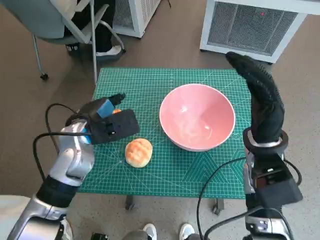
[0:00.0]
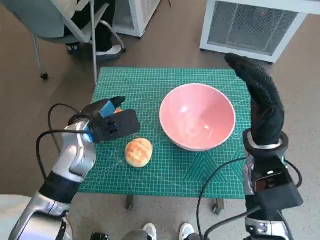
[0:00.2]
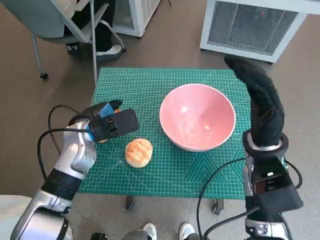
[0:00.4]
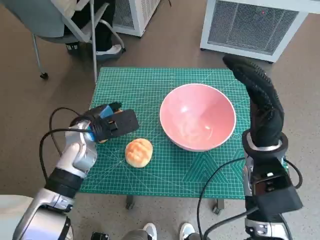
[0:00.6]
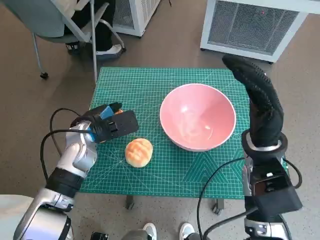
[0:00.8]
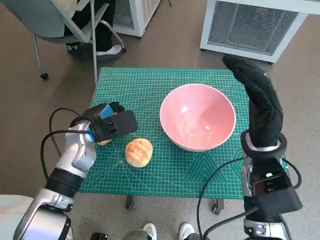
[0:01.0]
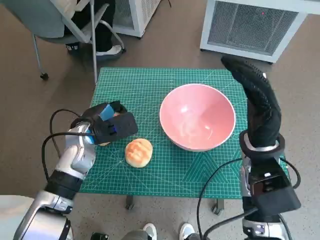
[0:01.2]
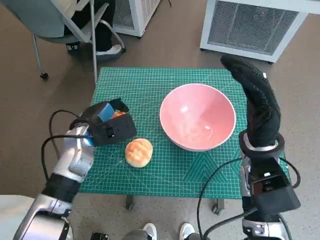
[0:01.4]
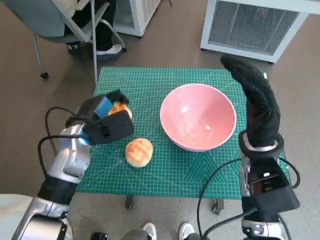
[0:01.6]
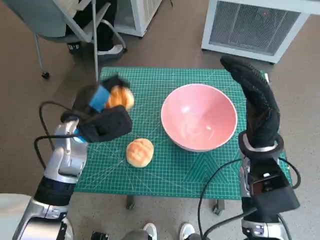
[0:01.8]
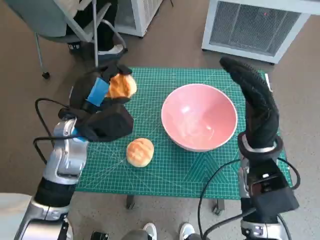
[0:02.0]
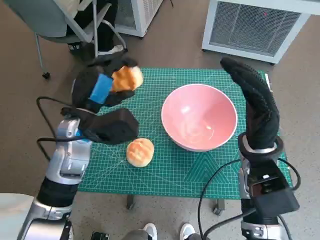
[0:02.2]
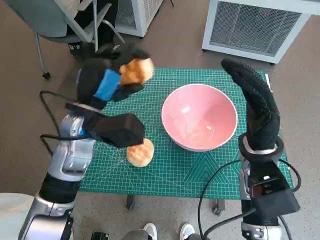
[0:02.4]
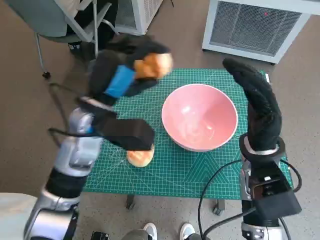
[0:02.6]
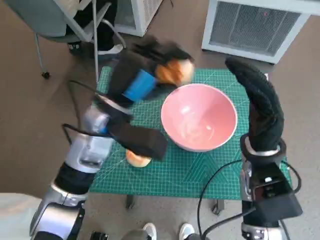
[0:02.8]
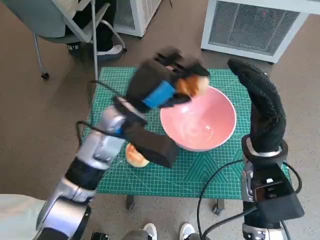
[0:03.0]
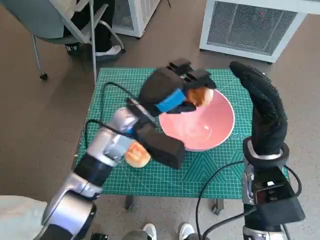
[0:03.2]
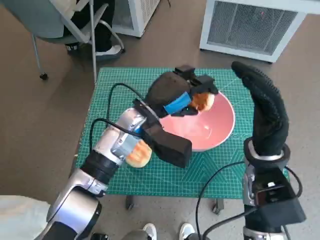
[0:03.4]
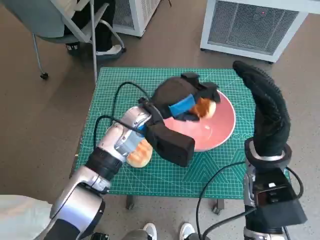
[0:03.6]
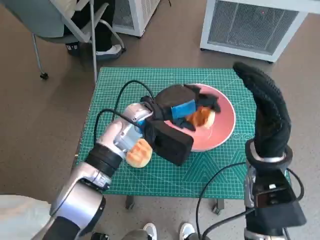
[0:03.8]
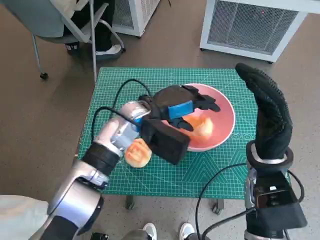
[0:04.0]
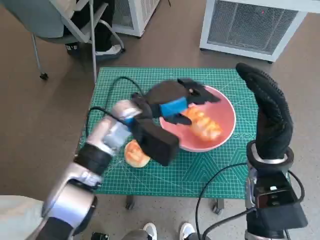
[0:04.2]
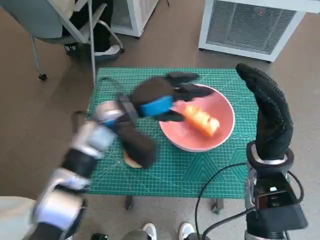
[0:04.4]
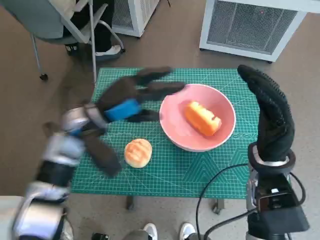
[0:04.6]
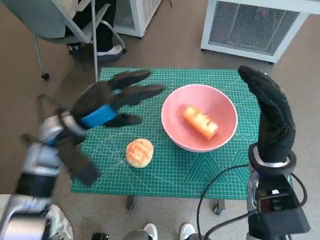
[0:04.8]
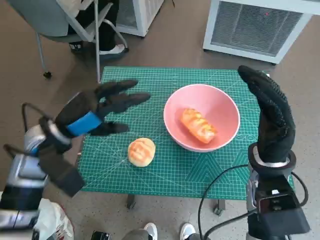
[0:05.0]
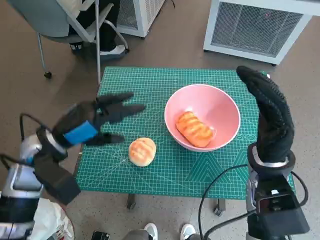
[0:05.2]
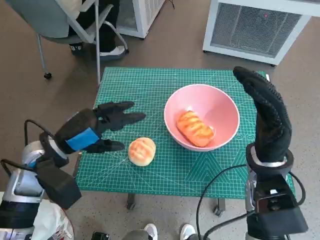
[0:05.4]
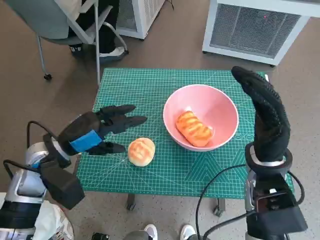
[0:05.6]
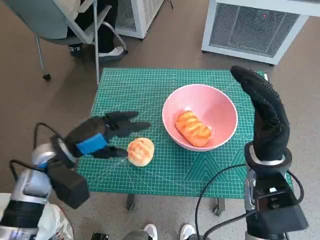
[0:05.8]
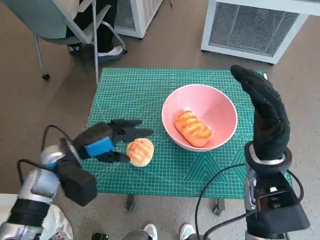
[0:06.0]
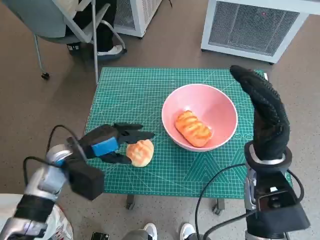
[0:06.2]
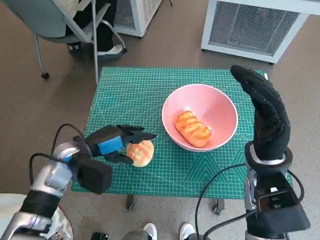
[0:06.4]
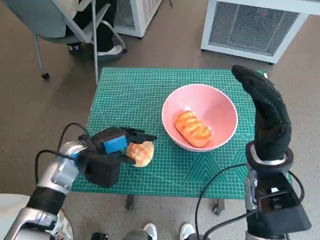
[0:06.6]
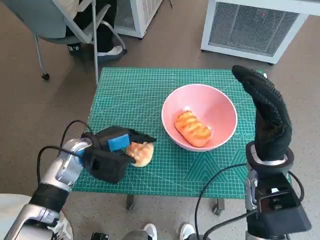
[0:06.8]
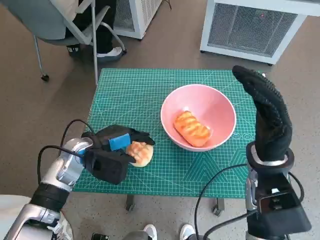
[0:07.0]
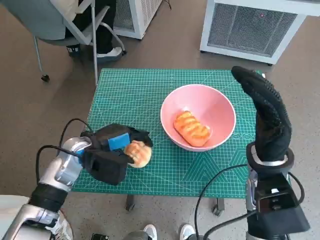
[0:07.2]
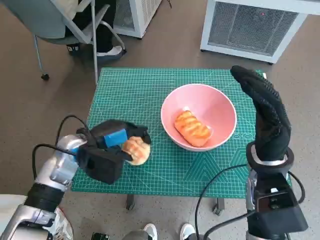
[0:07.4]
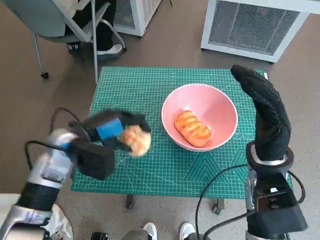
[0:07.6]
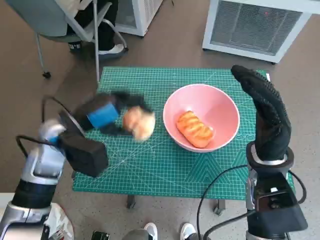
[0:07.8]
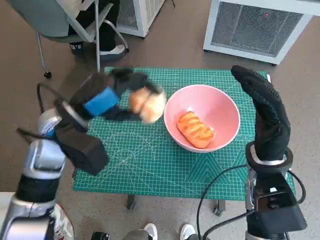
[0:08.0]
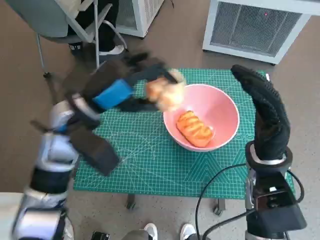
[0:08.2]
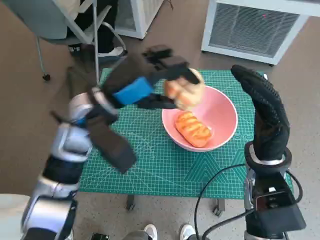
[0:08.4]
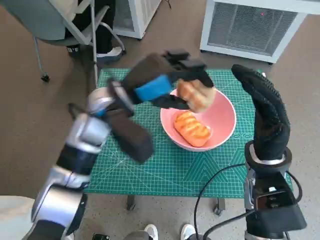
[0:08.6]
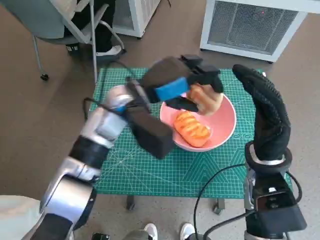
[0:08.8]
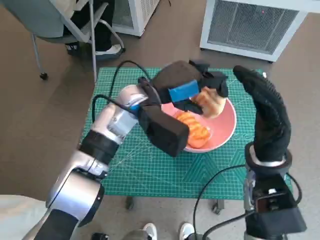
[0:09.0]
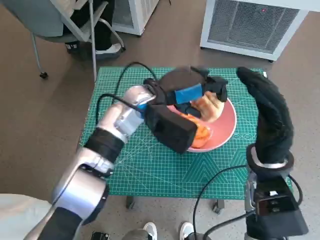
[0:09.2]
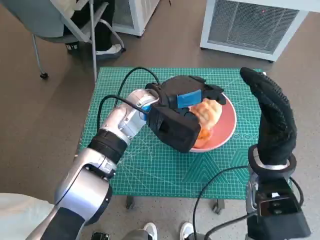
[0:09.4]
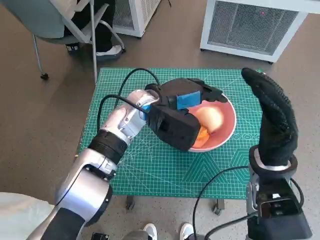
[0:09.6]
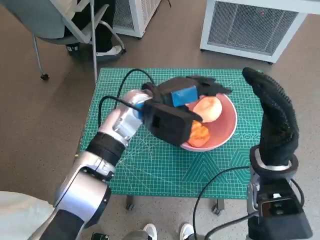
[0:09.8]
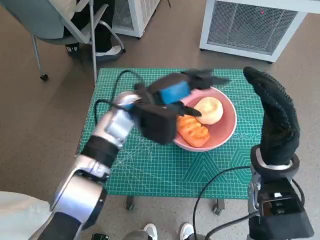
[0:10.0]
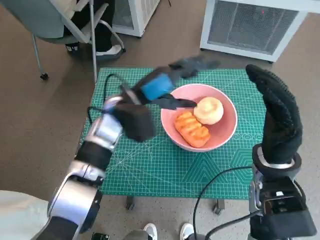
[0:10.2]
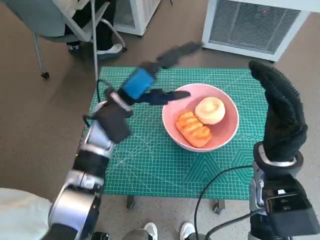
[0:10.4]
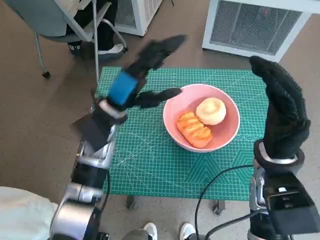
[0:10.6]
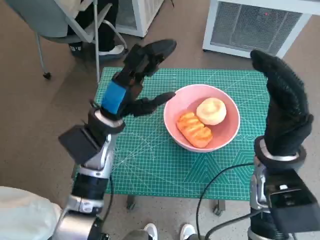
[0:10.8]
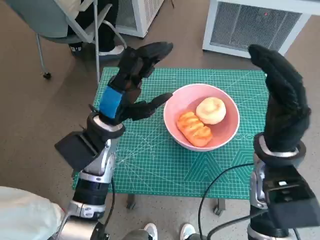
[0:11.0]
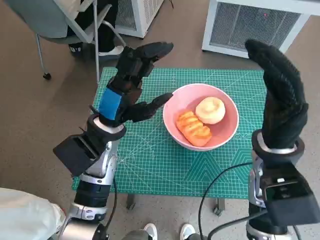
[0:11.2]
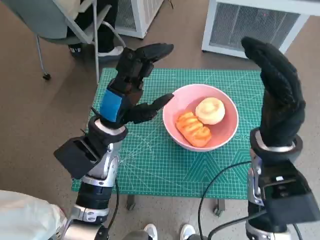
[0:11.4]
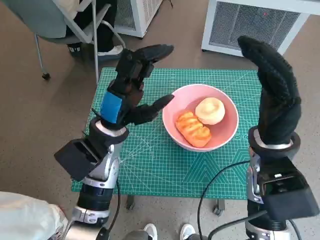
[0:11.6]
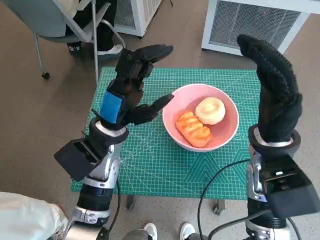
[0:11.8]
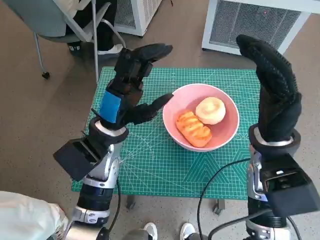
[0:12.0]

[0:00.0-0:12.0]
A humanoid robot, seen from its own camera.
Task of the whole recording: Push the bowl to the center of the table and put the bread into the bowl.
Step, 0:00.0 to 0:01.2: Grasp the long bread with left hand.
Step, 0:01.4 to 0:04.8: Place the long bread in pink bowl with left hand.
Step, 0:05.0 to 0:07.0: Grasp the round bread with left hand.
Step, 0:07.2 to 0:10.2: Place the round bread in pink bowl with left hand.
0:00.0 to 0:01.6: The hands move only a little.
0:01.6 to 0:03.0: The left hand shifts approximately 10 cm to the right and upward.
0:04.4 to 0:06.0: The left hand moves to the left, backward and downward, roughly 15 cm.
0:07.6 to 0:09.0: The left hand heads to the right, upward and forward, covering some 15 cm.
0:09.0 to 0:10.4: The left hand shifts by some 5 cm.
0:10.4 to 0:12.0: The left hand is displaced backward by roughly 5 cm.

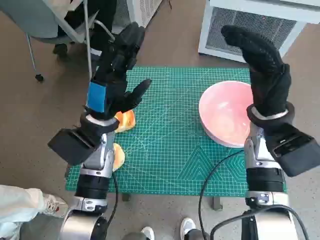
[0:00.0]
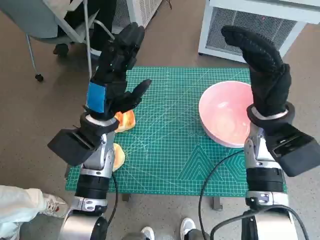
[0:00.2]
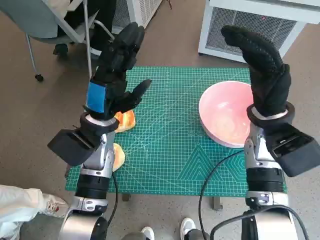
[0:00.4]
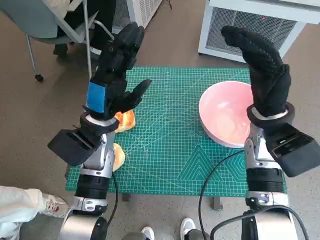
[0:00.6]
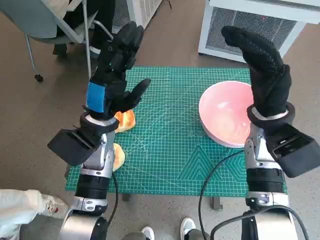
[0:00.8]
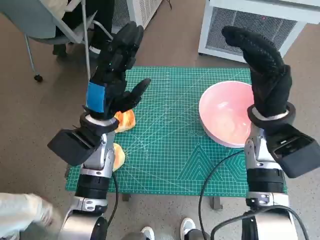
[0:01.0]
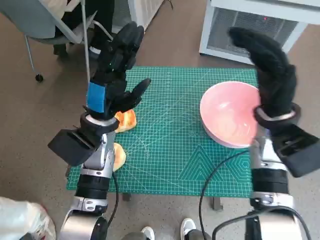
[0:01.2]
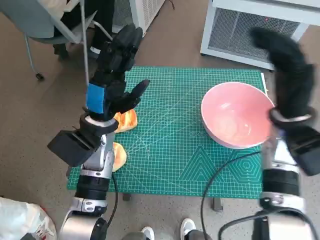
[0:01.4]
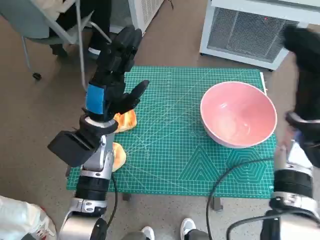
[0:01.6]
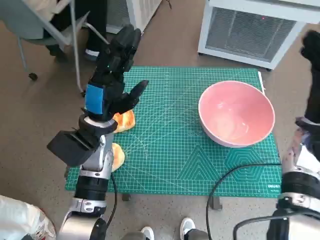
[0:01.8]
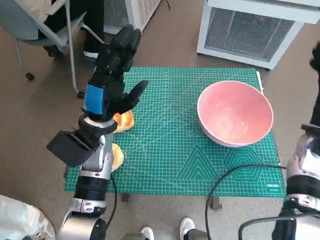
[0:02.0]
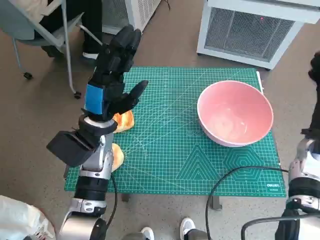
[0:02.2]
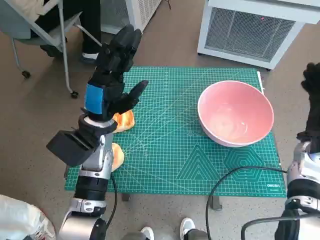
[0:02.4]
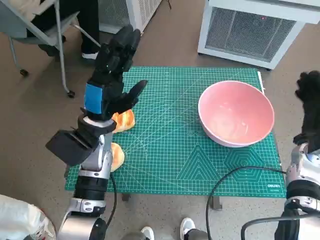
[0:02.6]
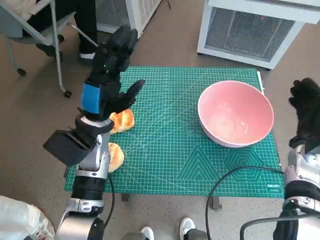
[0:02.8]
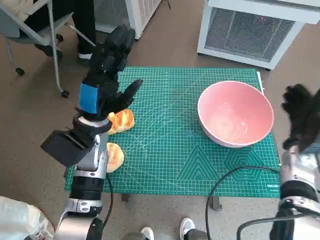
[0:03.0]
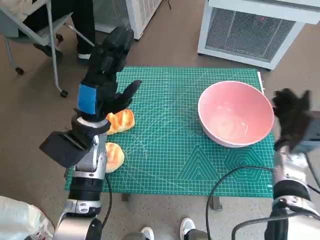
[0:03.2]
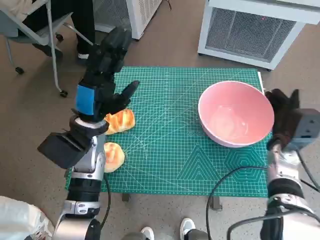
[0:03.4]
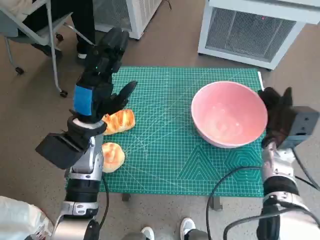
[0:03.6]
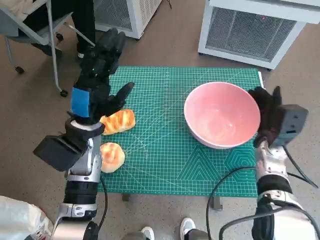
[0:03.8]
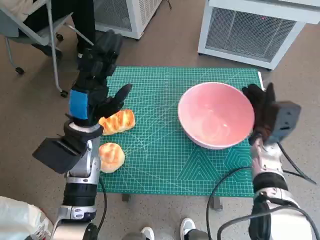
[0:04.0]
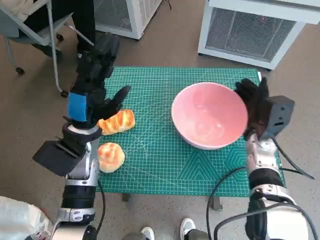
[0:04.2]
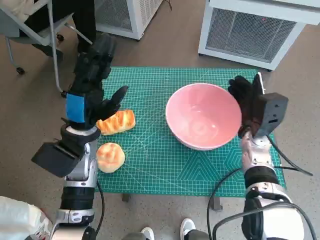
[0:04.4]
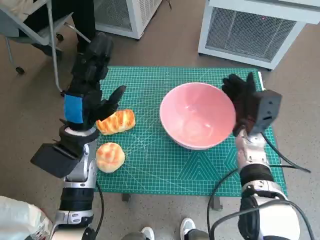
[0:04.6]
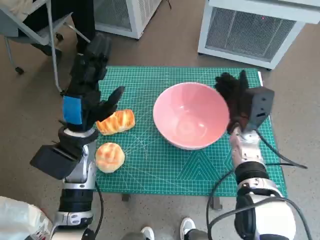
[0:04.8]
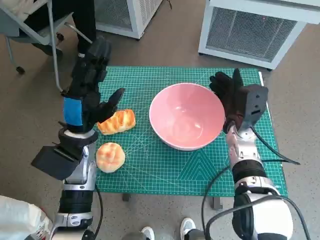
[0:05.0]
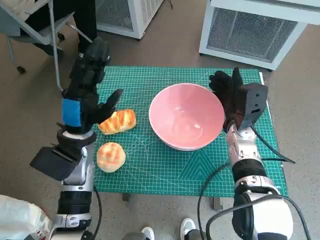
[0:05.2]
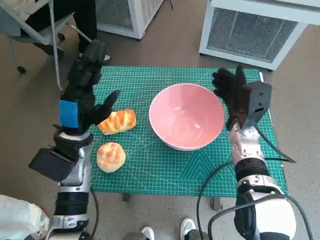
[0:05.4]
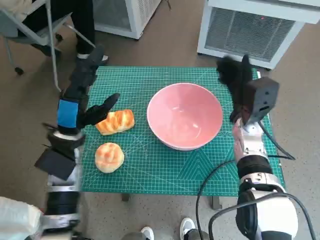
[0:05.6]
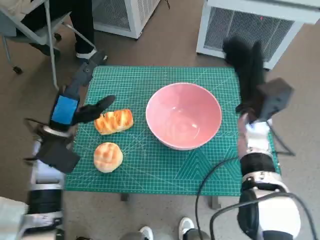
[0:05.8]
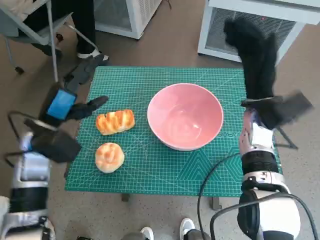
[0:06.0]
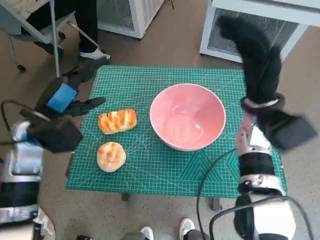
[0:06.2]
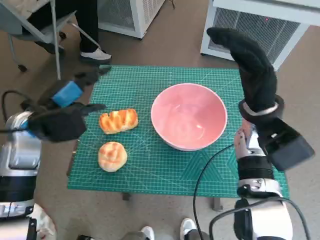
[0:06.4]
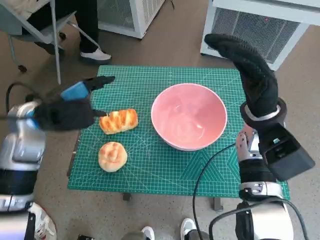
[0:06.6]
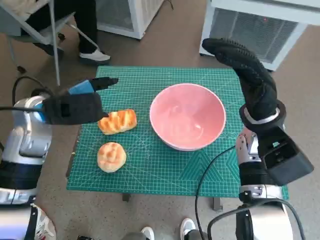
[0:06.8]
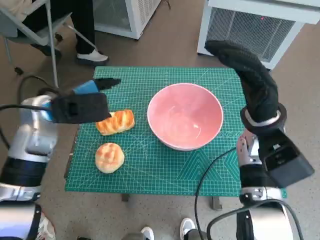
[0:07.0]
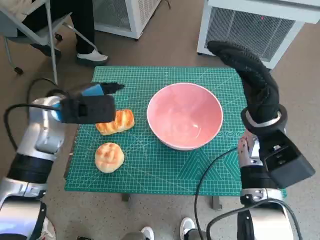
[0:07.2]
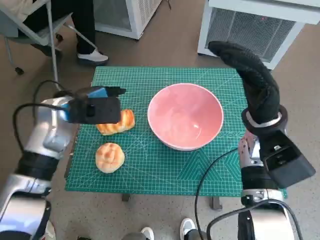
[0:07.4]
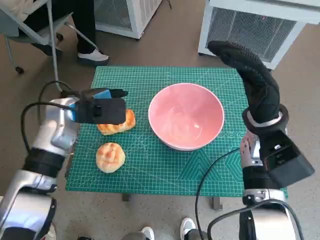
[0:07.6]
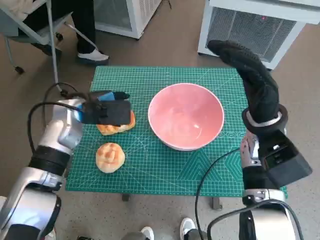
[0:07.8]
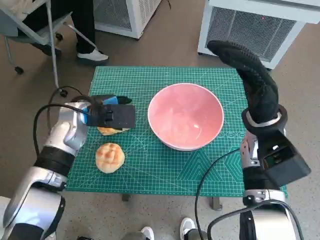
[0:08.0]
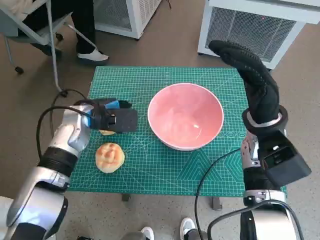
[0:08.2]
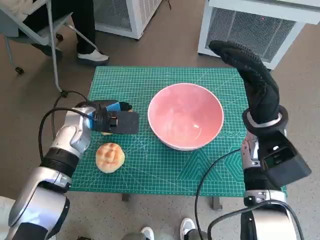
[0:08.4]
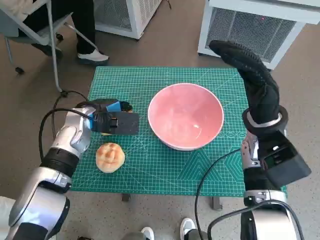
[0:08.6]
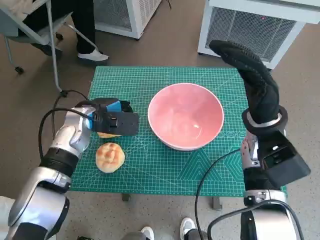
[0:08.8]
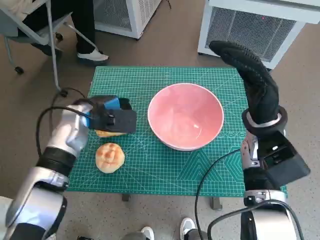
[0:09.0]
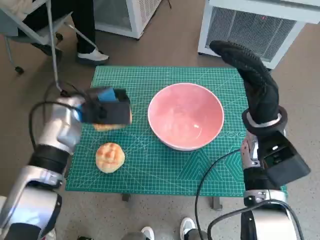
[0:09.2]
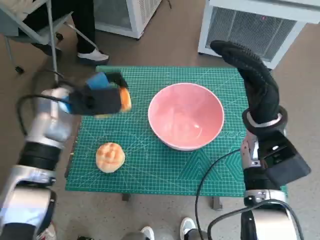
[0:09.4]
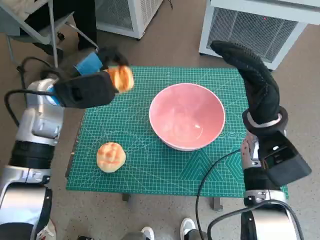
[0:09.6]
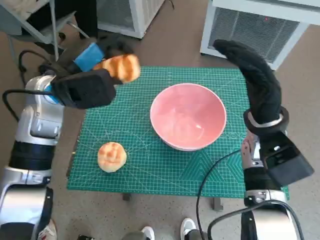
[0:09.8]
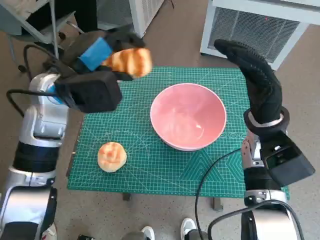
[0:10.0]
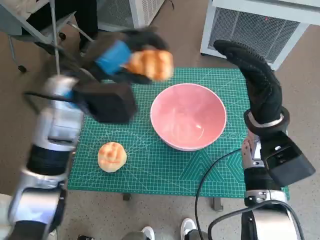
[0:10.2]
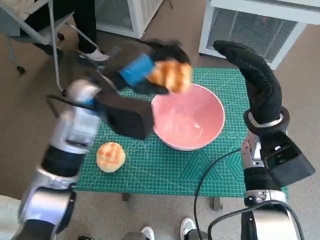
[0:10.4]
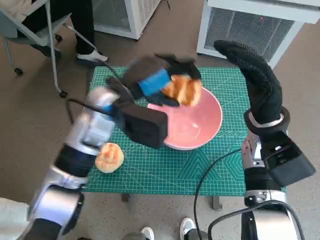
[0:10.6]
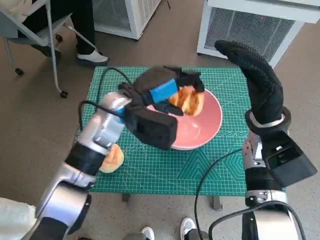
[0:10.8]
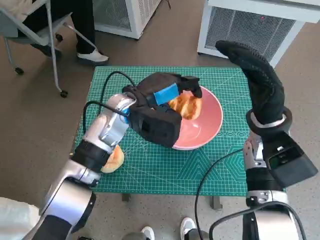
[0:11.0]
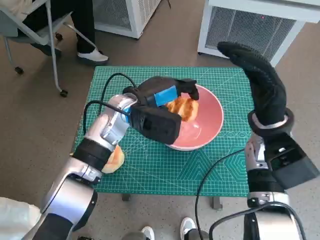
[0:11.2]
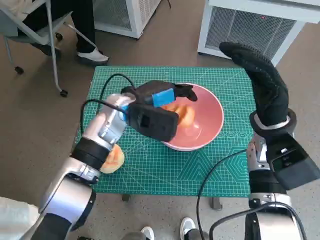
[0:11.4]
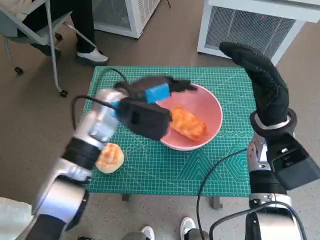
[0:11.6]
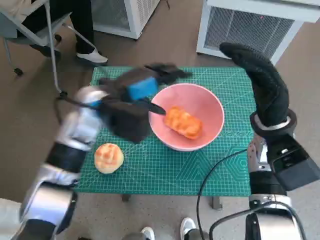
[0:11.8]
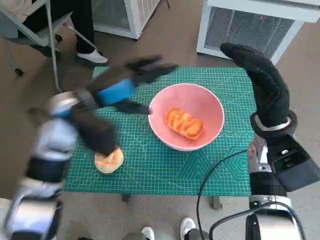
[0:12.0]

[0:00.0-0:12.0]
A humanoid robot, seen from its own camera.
Task of the whole recording: Push the bowl to the center of the table and put the bread into the bowl.
Step, 0:00.0 to 0:05.4: Move the pink bowl to the center of table with right hand.
Step, 0:05.8 to 0:08.8: Grasp the long bread with left hand.
Step, 0:09.0 to 0:11.6: Place the long bread in pink bowl with left hand.
0:01.6 to 0:03.0: The right hand is displaced downward by some 10 cm.
0:03.0 to 0:04.4: The right hand moves to the left, roughly 10 cm.
0:04.4 to 0:06.0: The right hand moves upward, approximately 10 cm, while the left hand is displaced to the left by roughly 5 cm.
0:06.0 to 0:07.6: The left hand heads forward, covering about 5 cm.
0:07.6 to 0:09.0: The hands stay close to where they were, moving slightly.
0:09.0 to 0:10.4: The left hand travels upward and to the right by approximately 10 cm.
